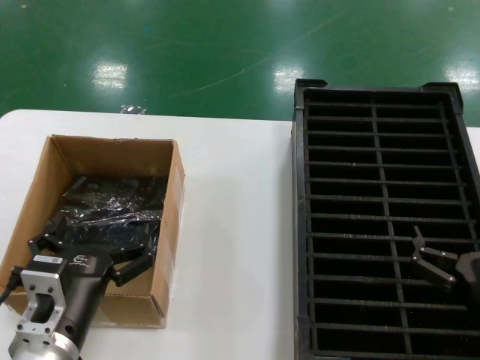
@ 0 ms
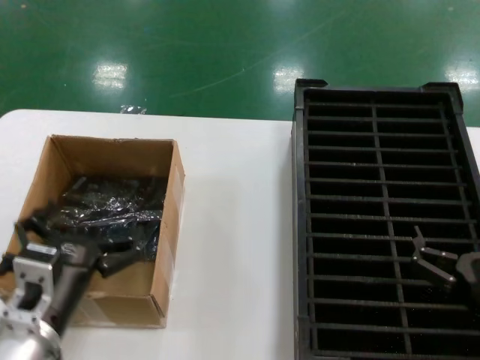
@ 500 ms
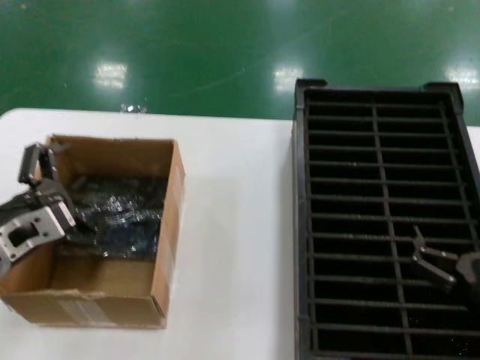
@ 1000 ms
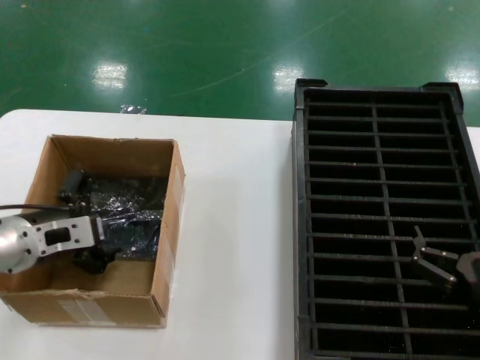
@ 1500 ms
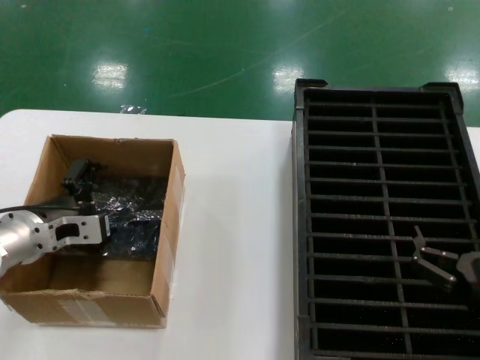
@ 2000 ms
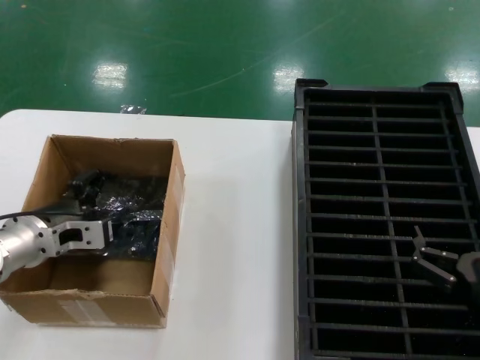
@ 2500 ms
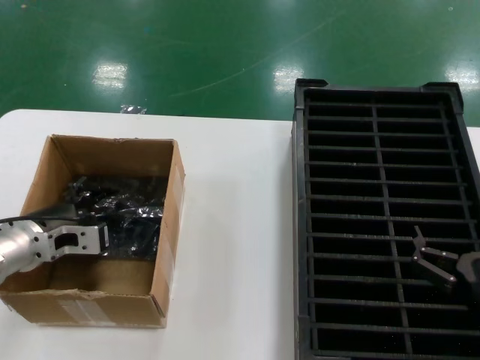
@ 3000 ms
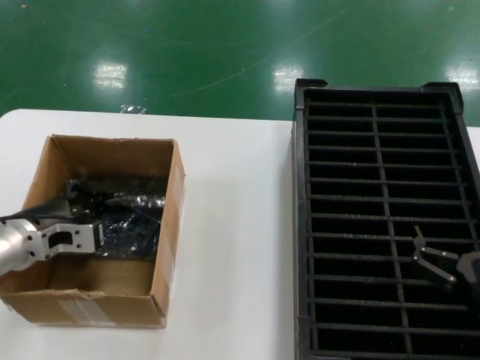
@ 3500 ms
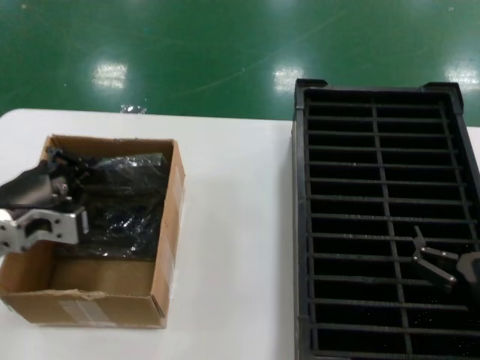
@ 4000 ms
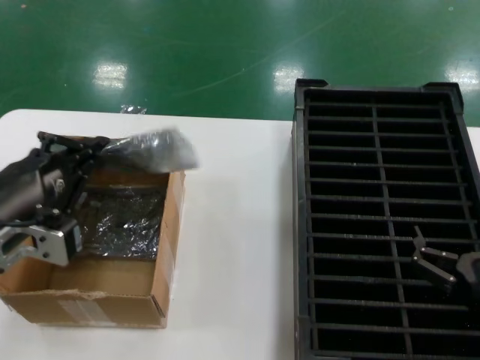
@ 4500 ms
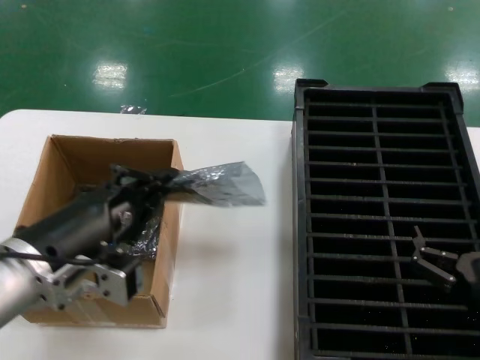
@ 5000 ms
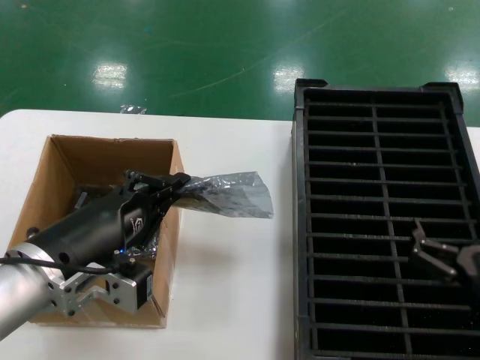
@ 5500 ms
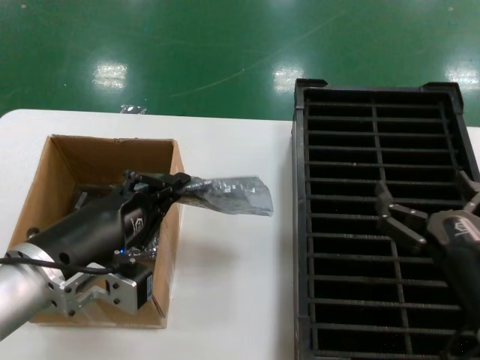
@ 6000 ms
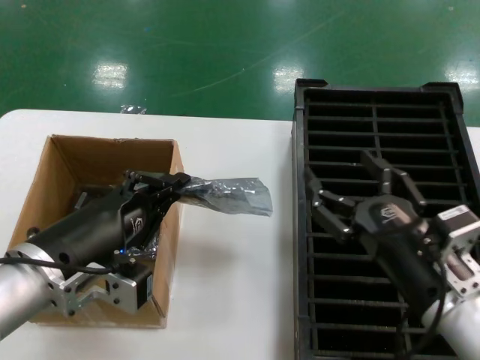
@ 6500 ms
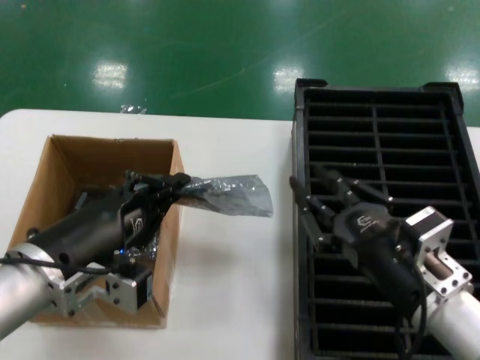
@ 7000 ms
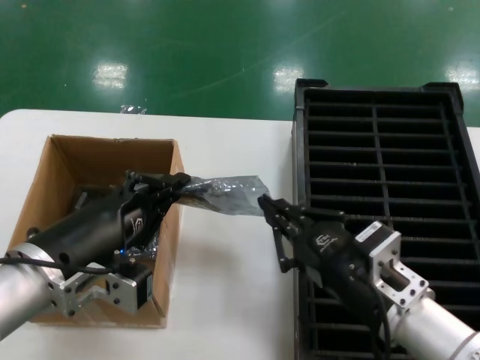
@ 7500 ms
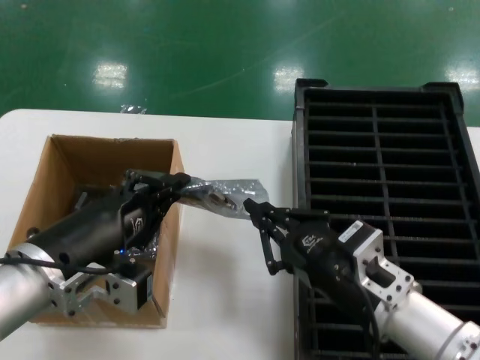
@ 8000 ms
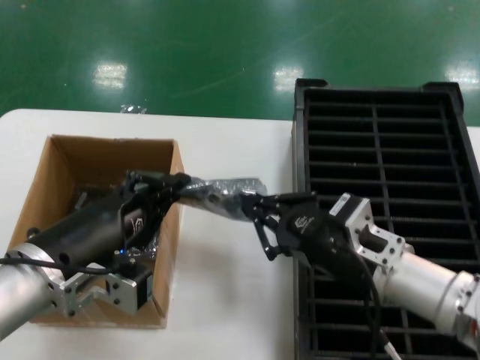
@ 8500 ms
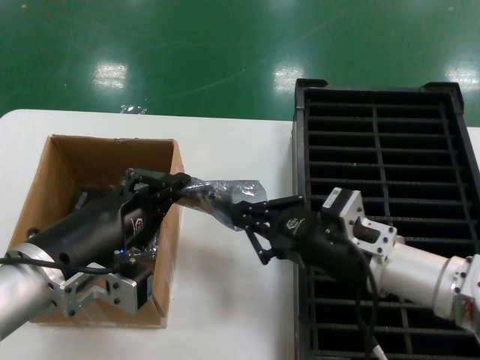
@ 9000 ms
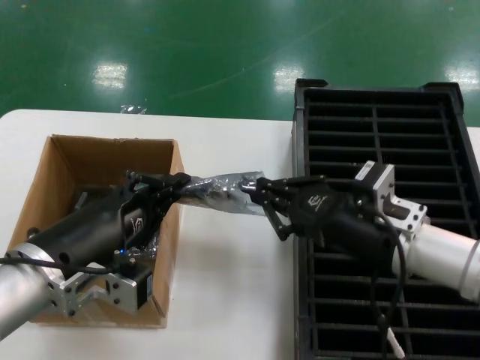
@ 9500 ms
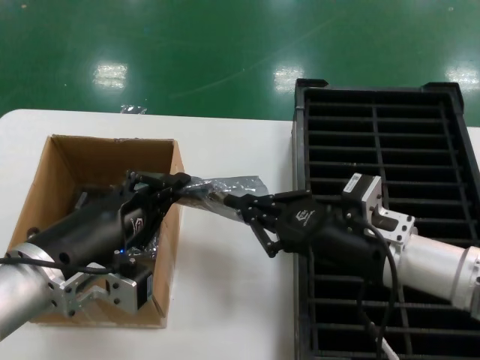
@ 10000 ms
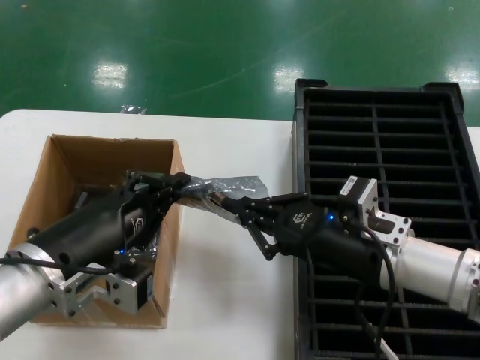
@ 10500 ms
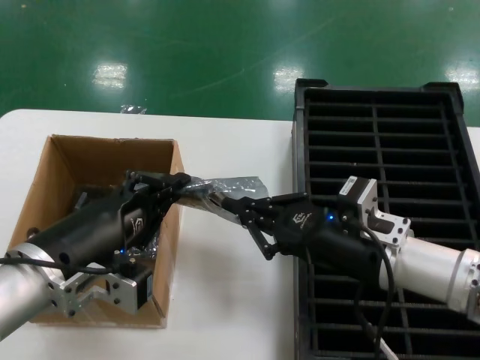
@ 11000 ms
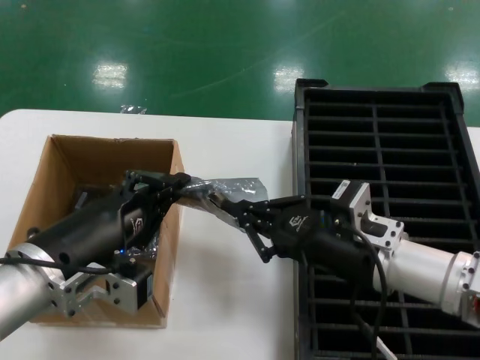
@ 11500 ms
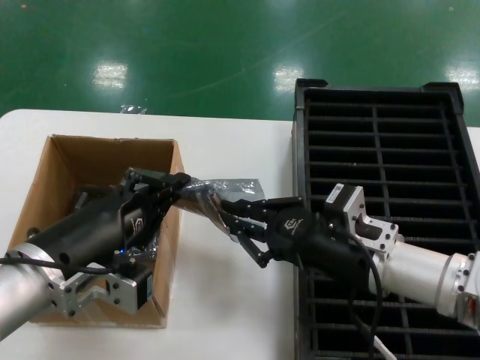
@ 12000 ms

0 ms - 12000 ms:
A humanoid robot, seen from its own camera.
Task of the whole recording: take out graphics card from box remove packaging put into black container.
Step, 0 ms - 3000 ms: Grasp the bag.
Step, 3500 ms - 6000 ms: Lift the bag.
0 ms - 2000 ms: The left hand travels forward, to the left and upward by some 20 cm.
2000 ms - 4000 ms: The left hand is displaced backward by roughly 5 cm.
4000 ms - 6000 ms: The left hand moves backward and to the right, approximately 15 cm.
6000 ms - 8000 ms: The right hand is displaced to the left by some 10 cm.
8000 ms - 10000 ms: The right hand moves forward, approximately 10 cm.
10000 ms - 12000 ms: The hands stay close to where they were, moving slightly.

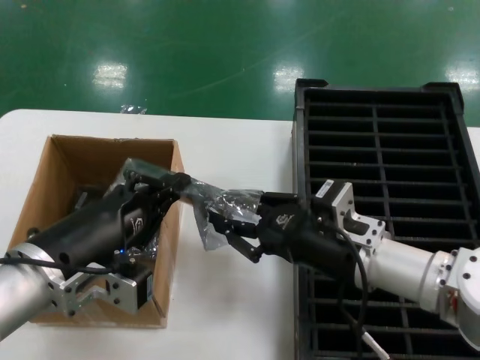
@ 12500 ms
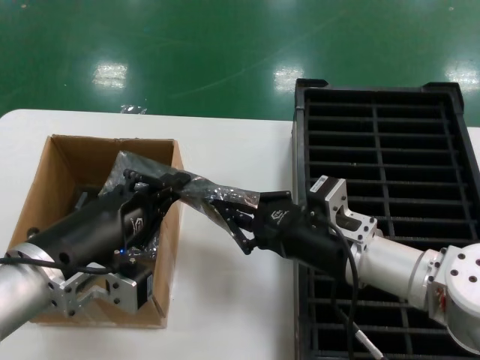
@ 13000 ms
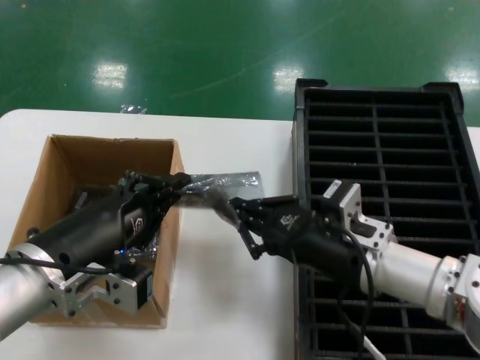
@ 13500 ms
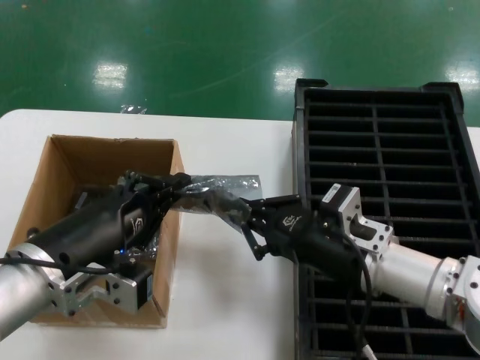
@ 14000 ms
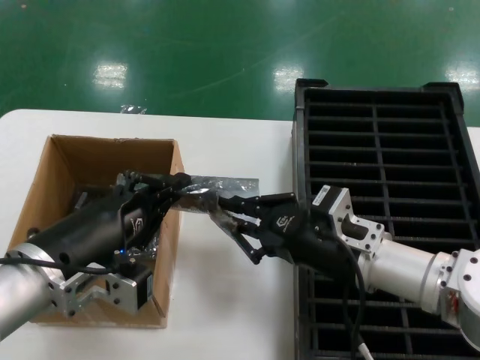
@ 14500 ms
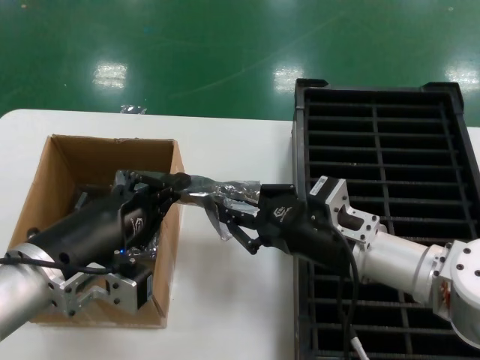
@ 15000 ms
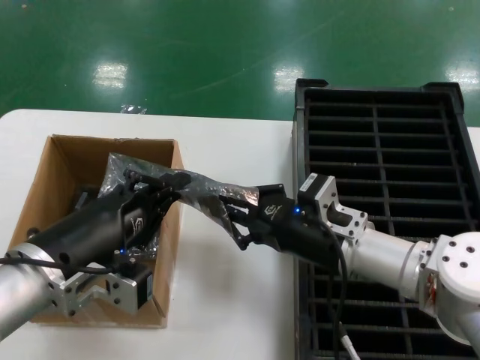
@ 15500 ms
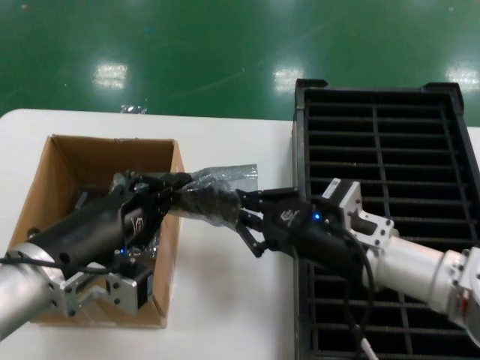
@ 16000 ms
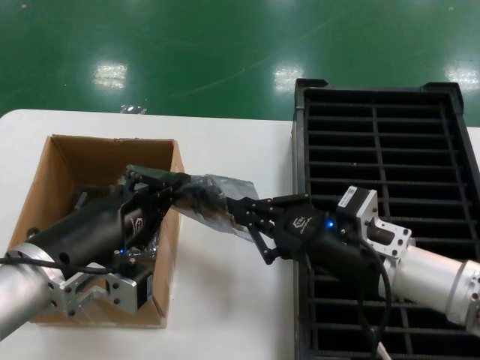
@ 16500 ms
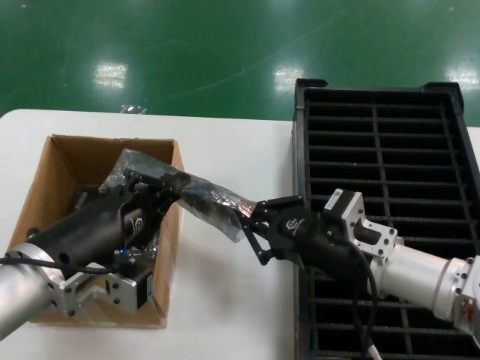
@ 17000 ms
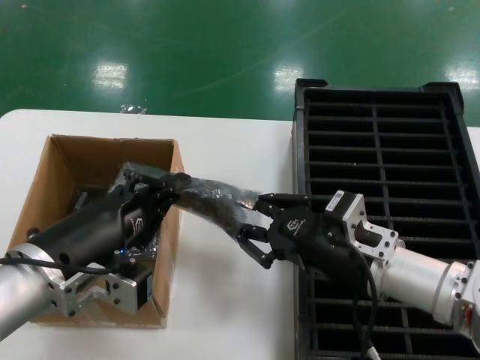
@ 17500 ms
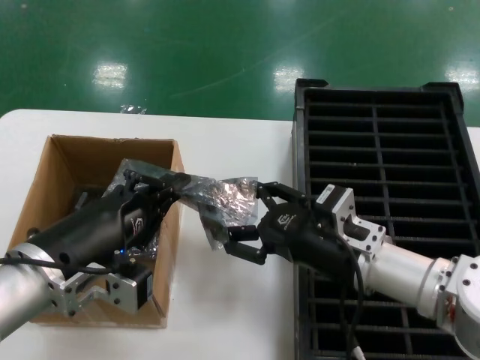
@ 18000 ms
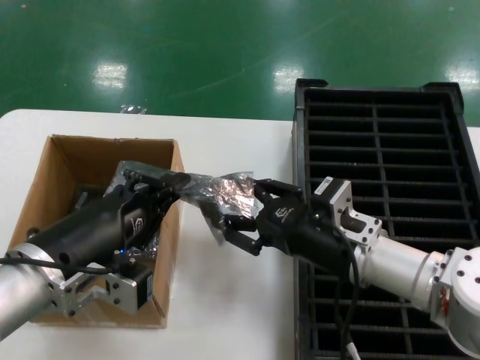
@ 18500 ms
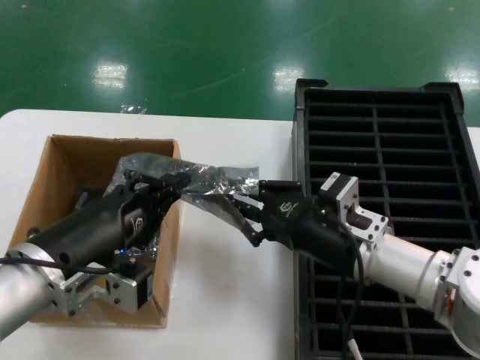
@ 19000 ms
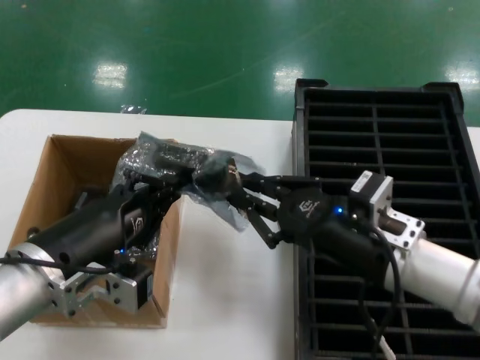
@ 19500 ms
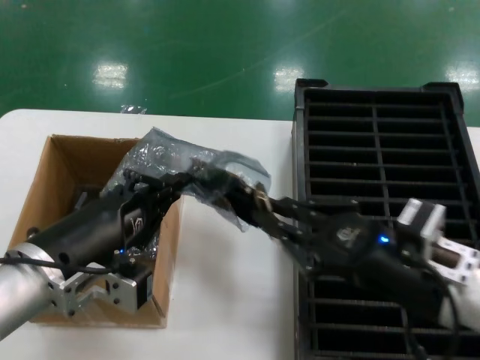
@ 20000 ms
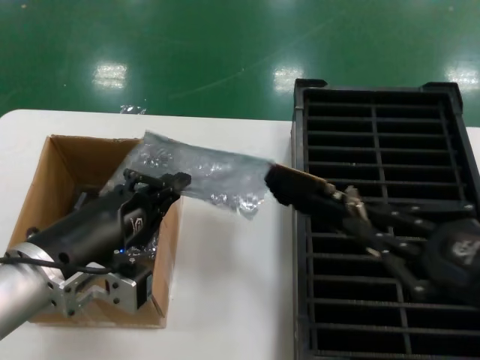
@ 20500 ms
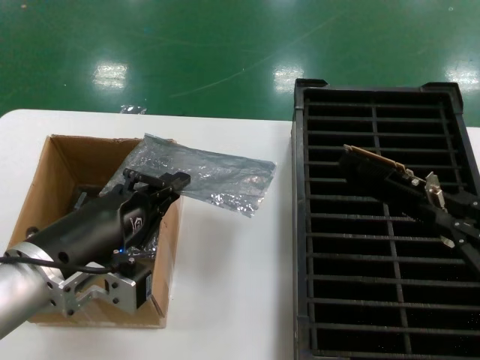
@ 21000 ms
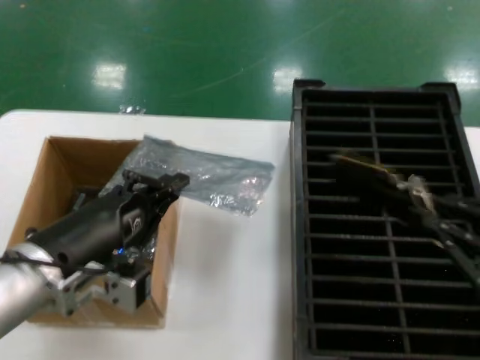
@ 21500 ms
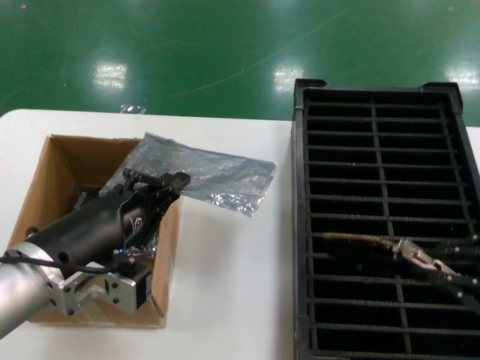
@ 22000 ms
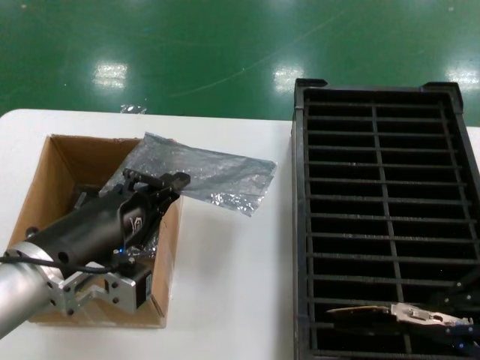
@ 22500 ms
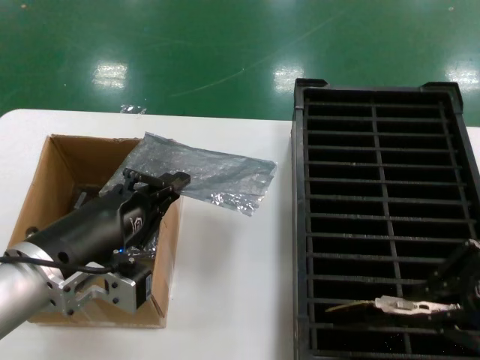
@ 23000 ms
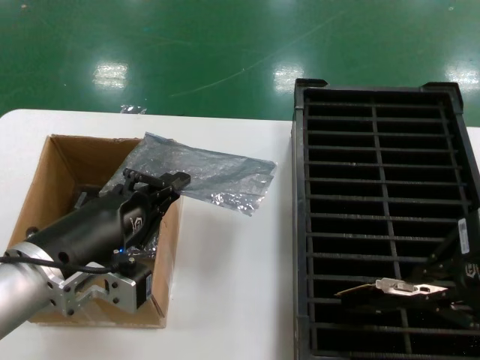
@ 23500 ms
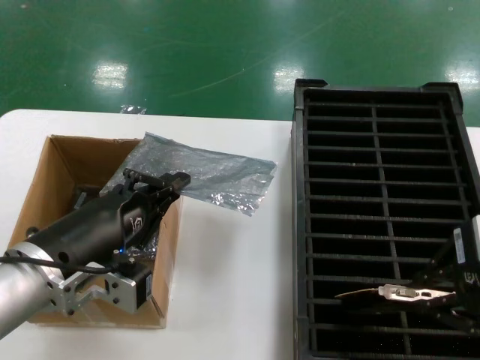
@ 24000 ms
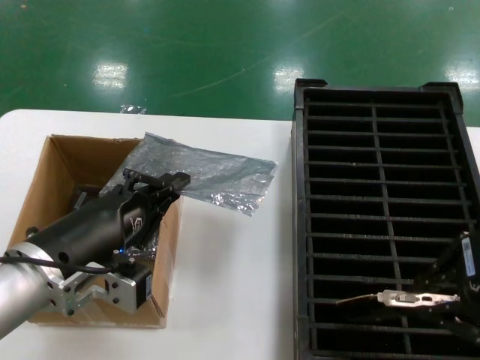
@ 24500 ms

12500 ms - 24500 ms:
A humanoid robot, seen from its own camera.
Task of the whole recording: take out graphics card from box remove packaging put into black container.
Step, 12500 ms - 20500 ms: Take out the hard disk of the bag.
12500 ms - 18500 ms: The hands make only small movements.
18500 ms - 20500 ms: The right hand moves backward, to the right and upward, roughly 25 cm.
20500 ms - 22500 ms: The right hand moves upward, some 10 cm.
22500 ms - 24500 ms: The right hand changes place by roughly 5 cm.

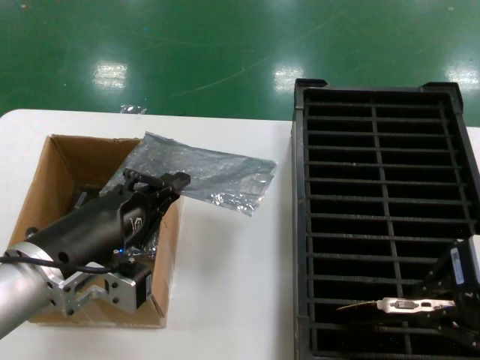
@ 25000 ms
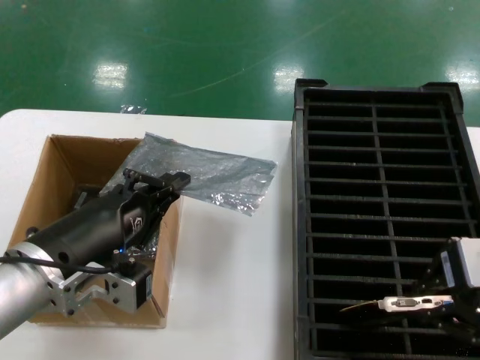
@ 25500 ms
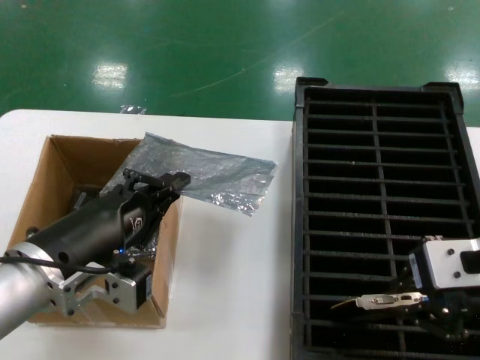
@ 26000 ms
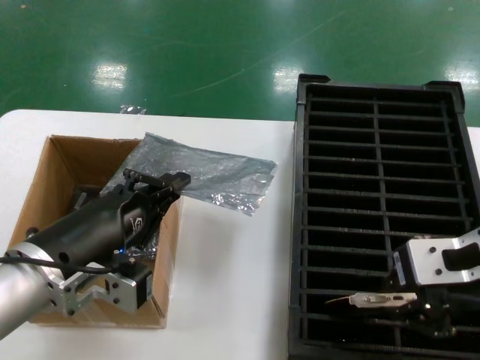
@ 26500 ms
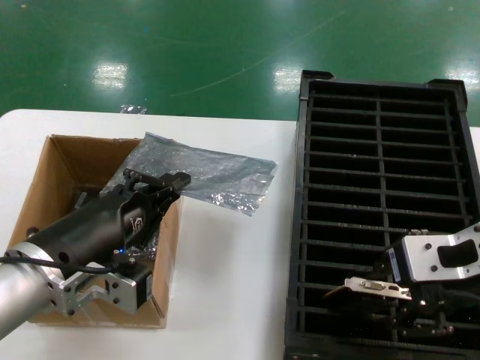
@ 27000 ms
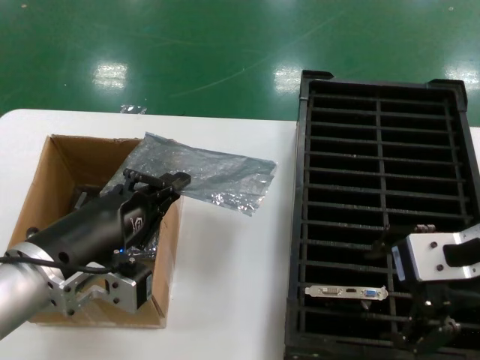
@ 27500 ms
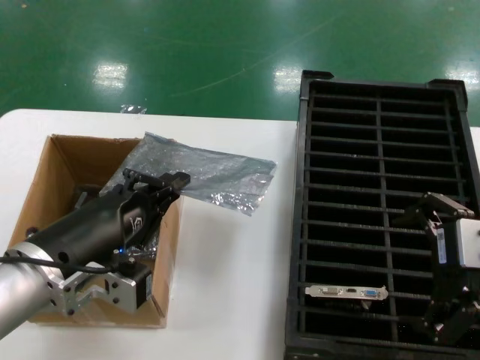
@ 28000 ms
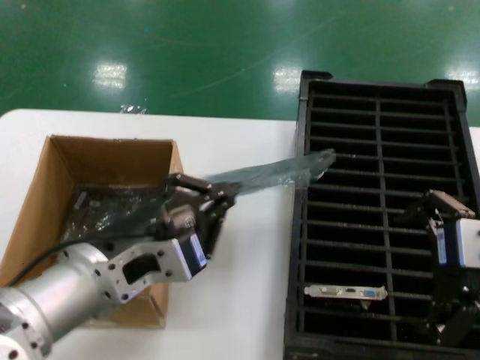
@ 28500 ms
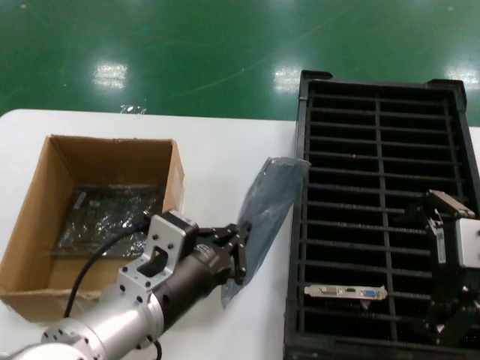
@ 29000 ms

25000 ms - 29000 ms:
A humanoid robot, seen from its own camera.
Task of the whole recording: take out graphics card from box remove packaging put into black container.
Step, 25000 ms - 27000 ms: Place the hard disk in the hard disk enclosure.
25000 ms - 27000 ms: The right hand changes place by about 5 cm.
27000 ms - 29000 ms: The left hand is displaced to the right by approximately 10 cm.
